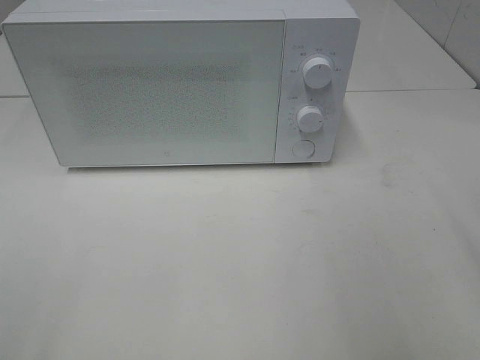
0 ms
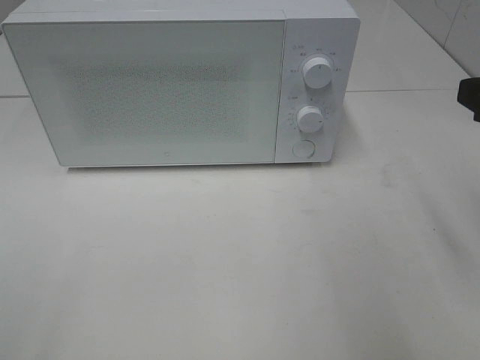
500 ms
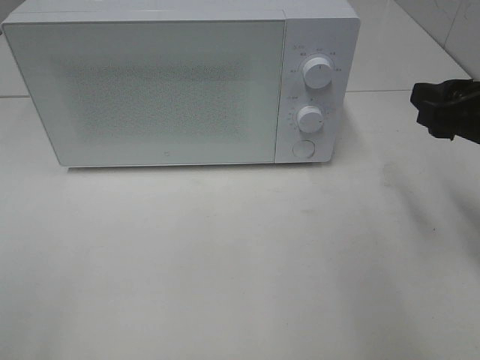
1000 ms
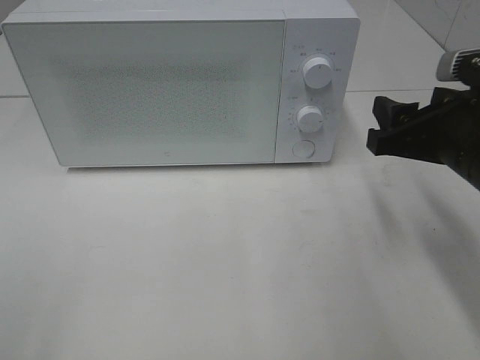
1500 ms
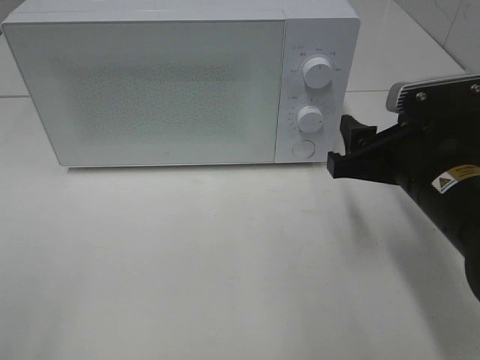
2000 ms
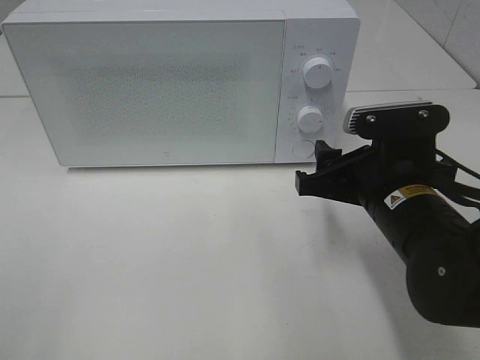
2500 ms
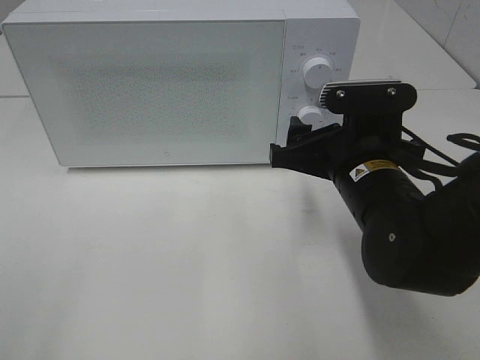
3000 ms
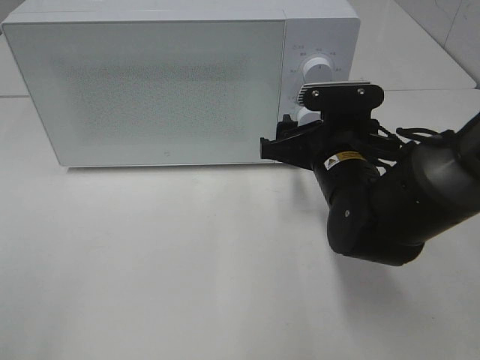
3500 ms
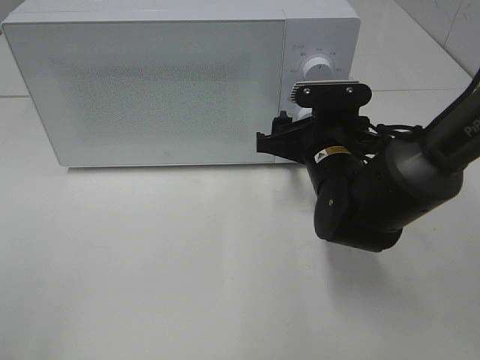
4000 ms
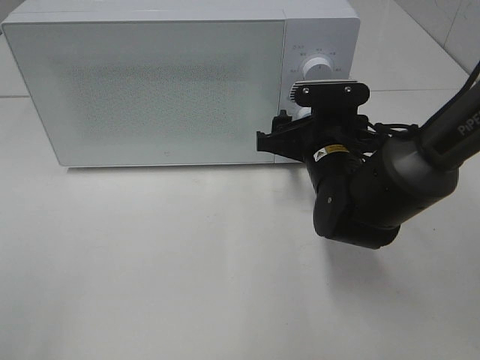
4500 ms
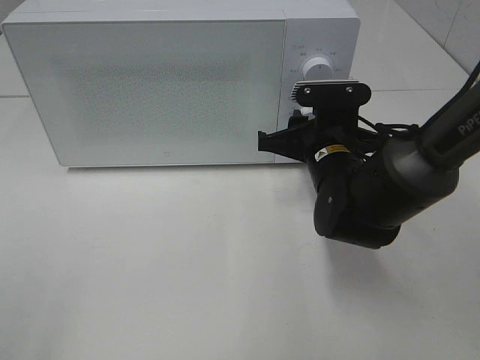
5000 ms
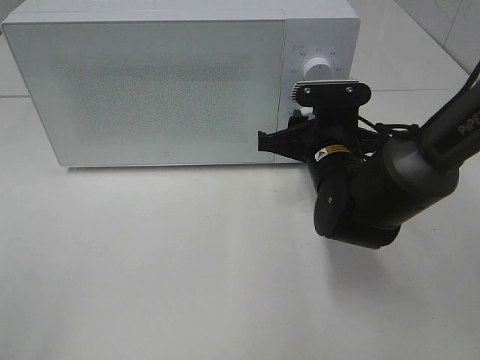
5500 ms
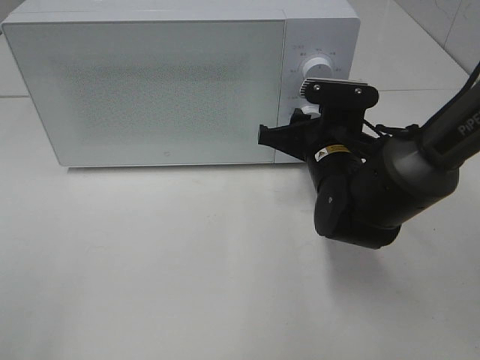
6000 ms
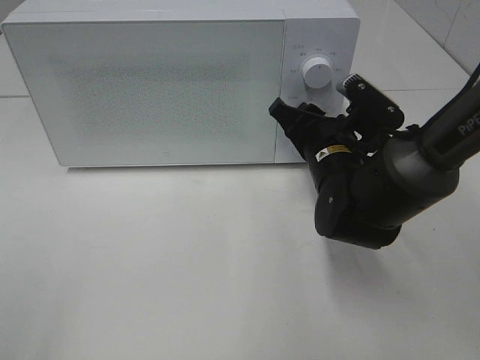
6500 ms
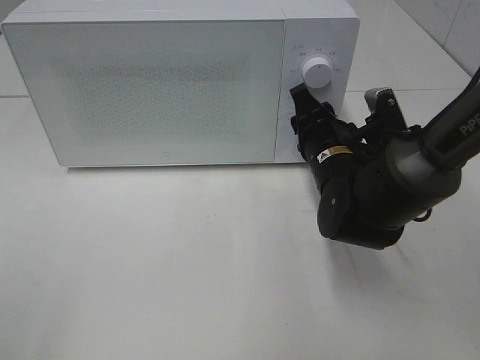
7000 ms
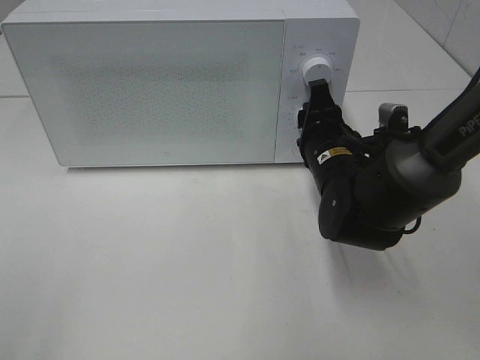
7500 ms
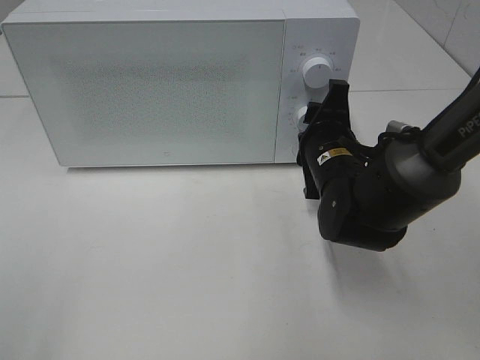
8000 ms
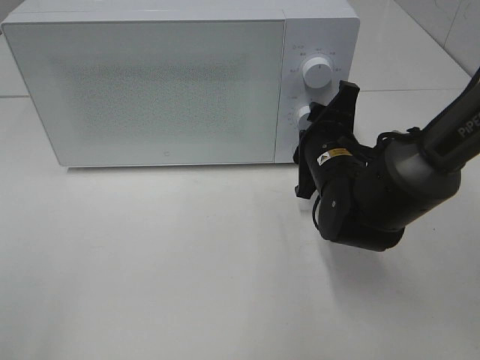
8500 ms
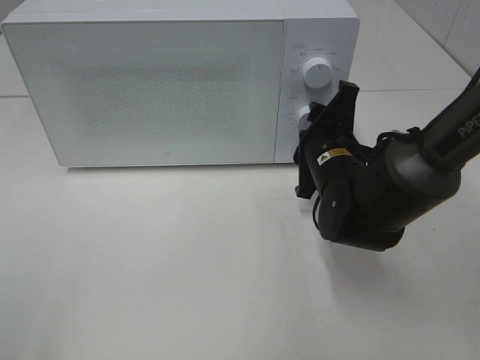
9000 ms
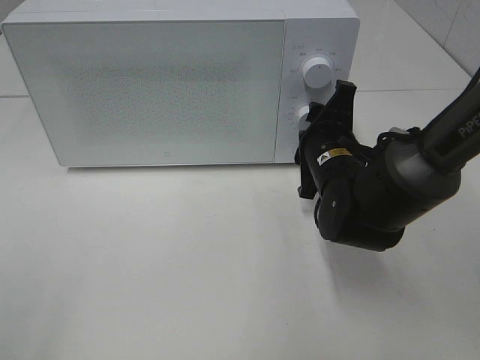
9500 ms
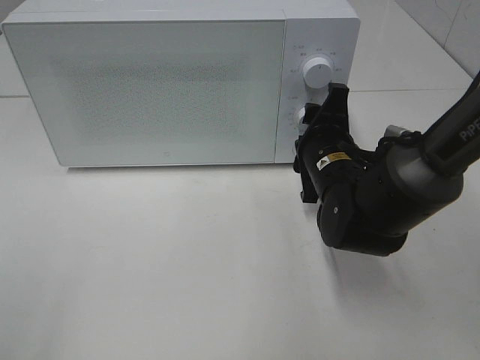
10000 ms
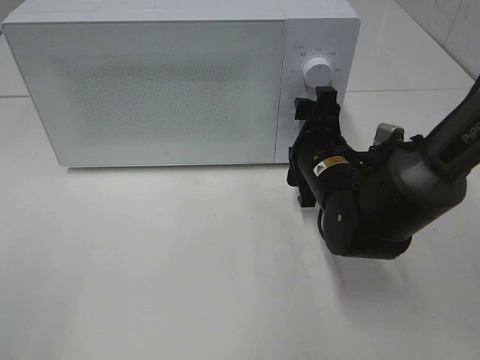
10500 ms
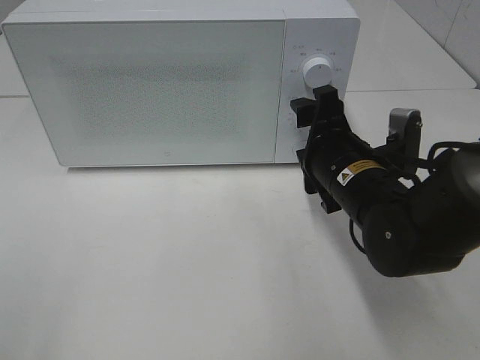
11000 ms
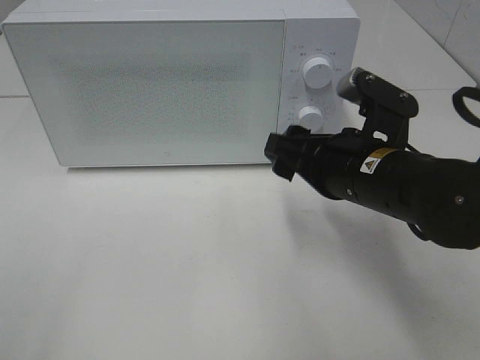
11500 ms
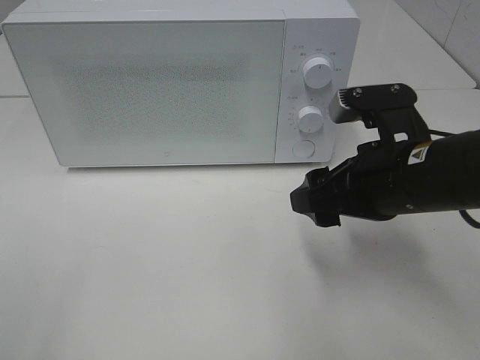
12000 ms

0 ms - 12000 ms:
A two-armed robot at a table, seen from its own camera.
Task of the whole recording: Heat the burger.
Step, 0 ms - 10000 ms: Right hand: twist timer button.
0 ms - 2000 ms: The right gripper moves downward, forward and to the left, approximately 20 cm.
2000 ms - 4000 ms: The right gripper is displaced forward, to the left and downward by roughly 15 cm.
4000 ms - 6000 ms: The right gripper closes its fingers.
8000 ms - 10000 ms: There are only small adjustments of the grippers.
10000 ms - 12000 ms: The right gripper shifts some 10 cm backward and upward.

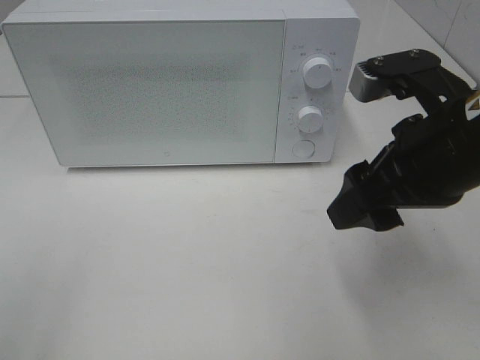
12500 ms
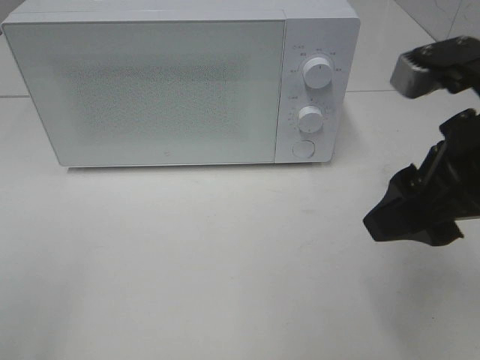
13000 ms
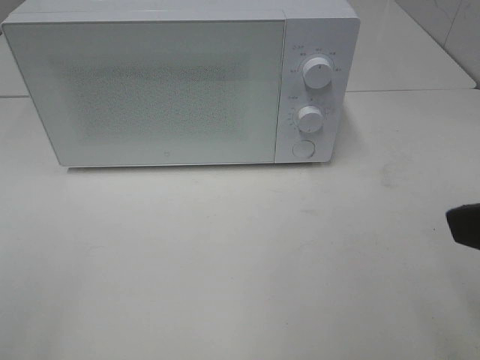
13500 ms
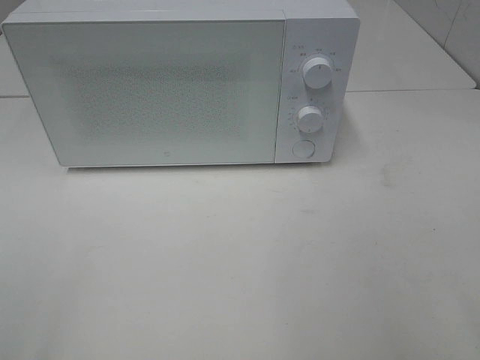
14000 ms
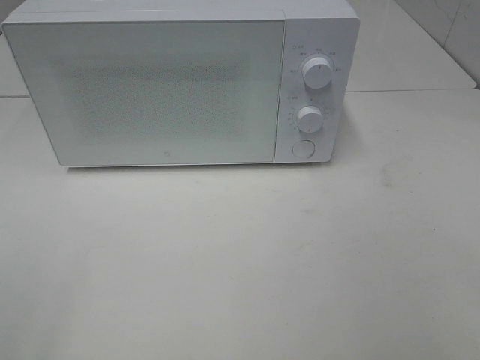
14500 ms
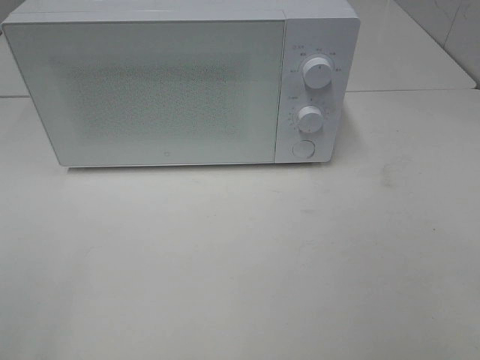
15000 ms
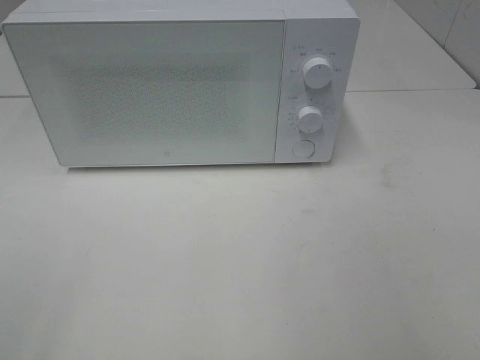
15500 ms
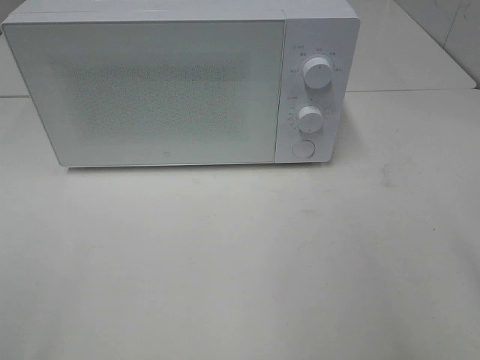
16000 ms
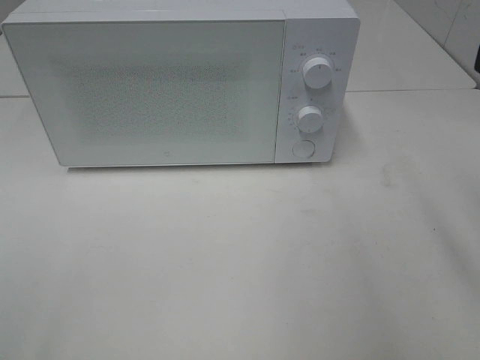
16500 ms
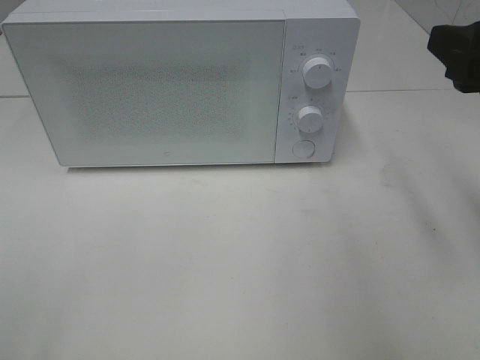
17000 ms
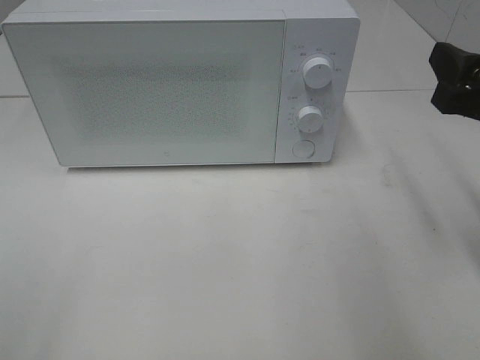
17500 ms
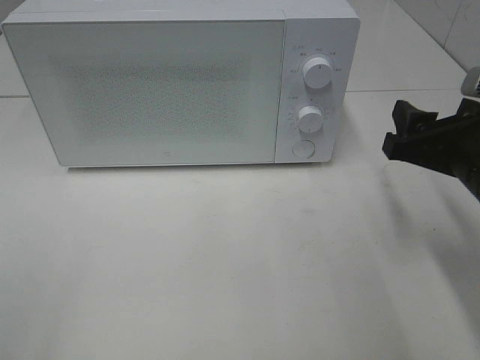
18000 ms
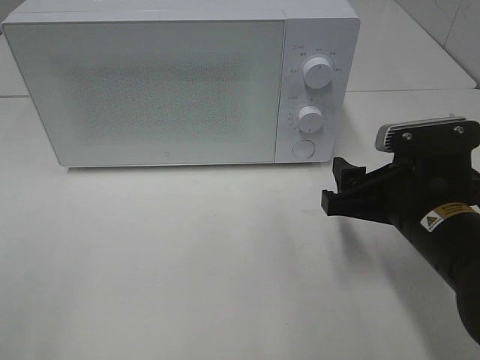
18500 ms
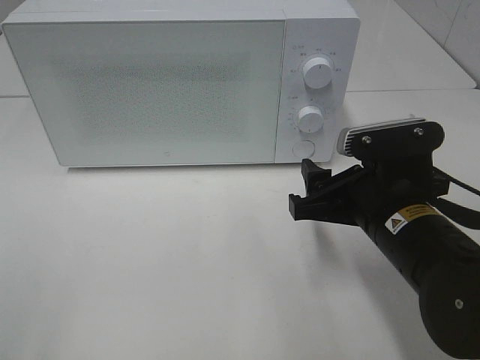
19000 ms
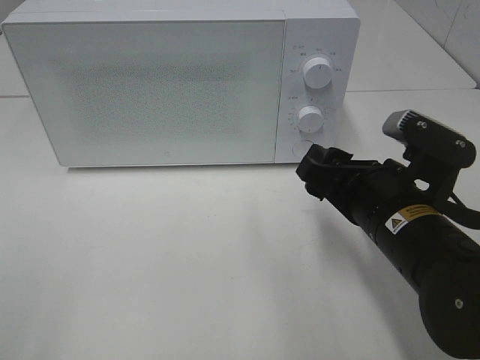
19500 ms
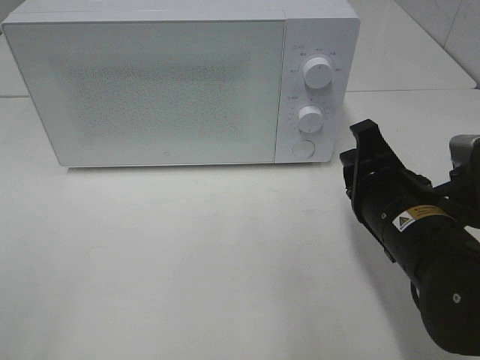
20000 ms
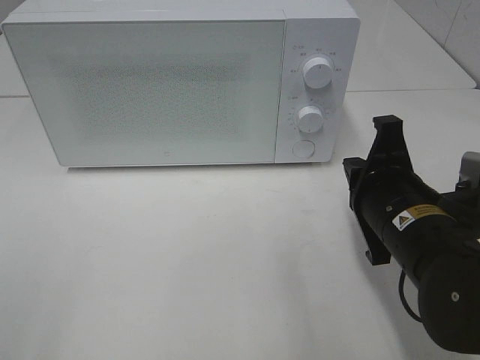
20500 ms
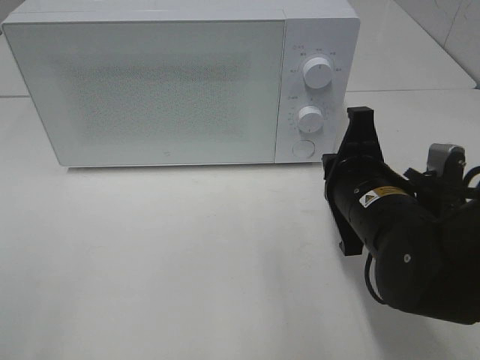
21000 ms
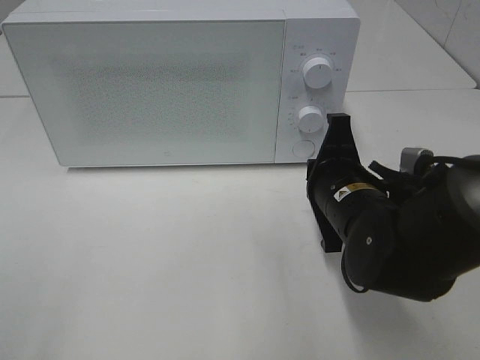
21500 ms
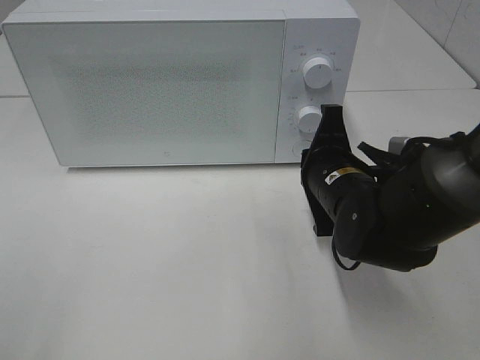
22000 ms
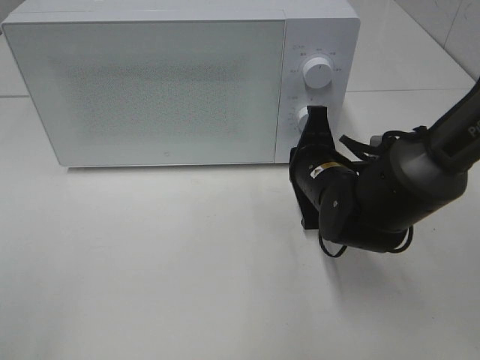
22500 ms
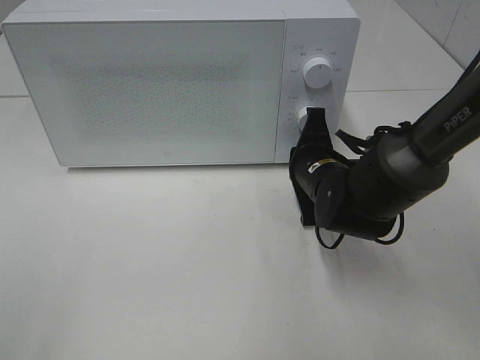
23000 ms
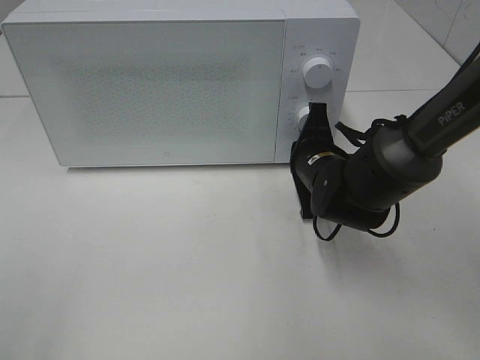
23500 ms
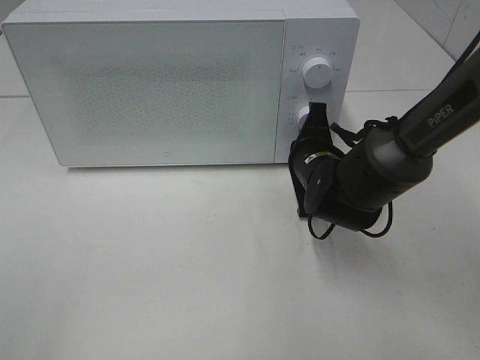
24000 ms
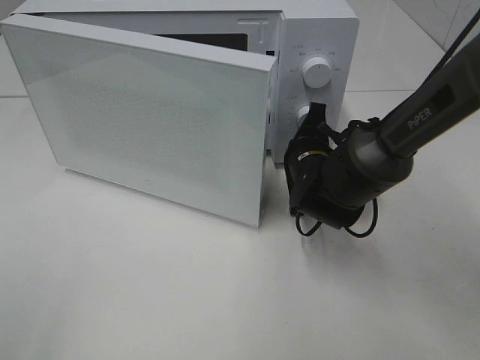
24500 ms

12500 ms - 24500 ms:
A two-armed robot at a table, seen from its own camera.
Task of the whole recording: Heat the burger.
12500 ms - 14500 ms: The right gripper moves backward and to the right, some 25 cm.
16500 ms - 18500 ms: The right gripper is displaced downward and to the left by some 20 cm.
18500 ms - 20500 ms: The right gripper closes up.
20500 ms - 22500 ms: The right gripper travels forward by about 10 cm.
22500 ms - 24500 ms: The right gripper moves approximately 5 cm.

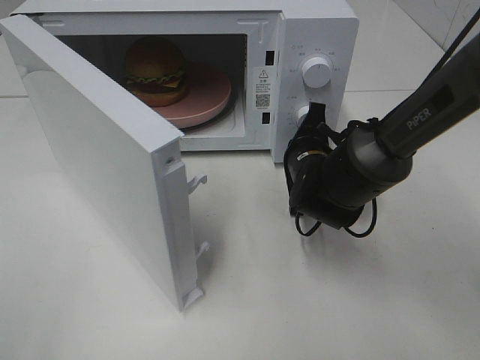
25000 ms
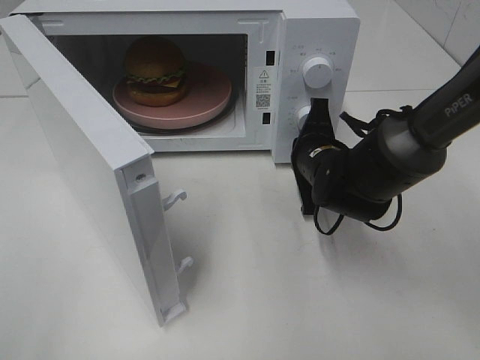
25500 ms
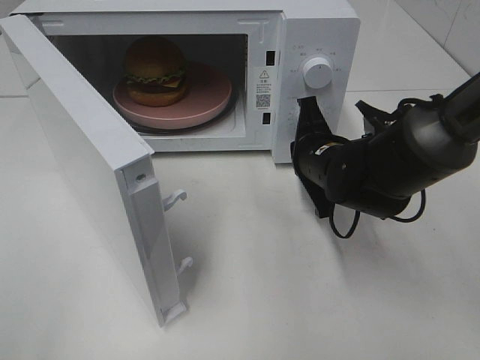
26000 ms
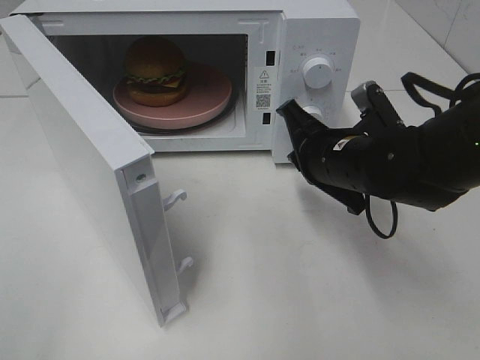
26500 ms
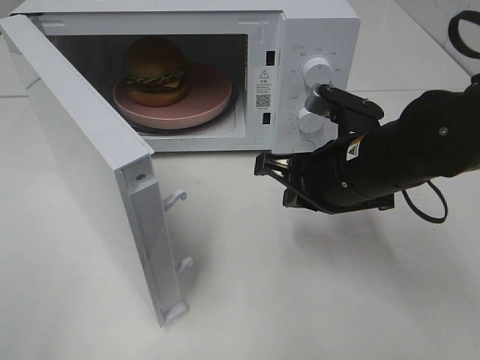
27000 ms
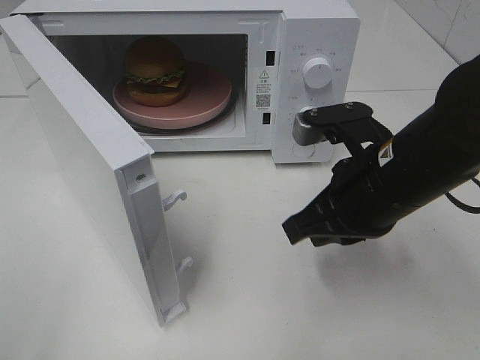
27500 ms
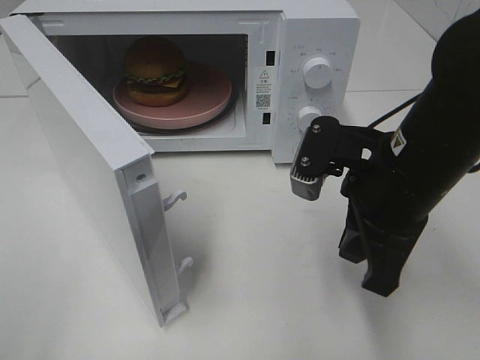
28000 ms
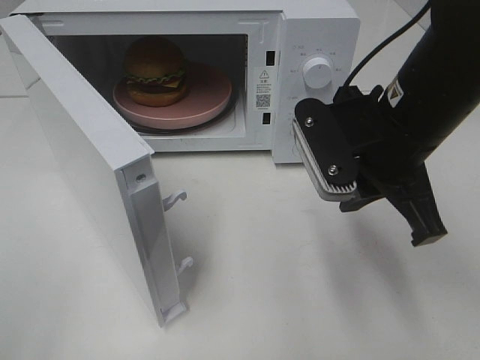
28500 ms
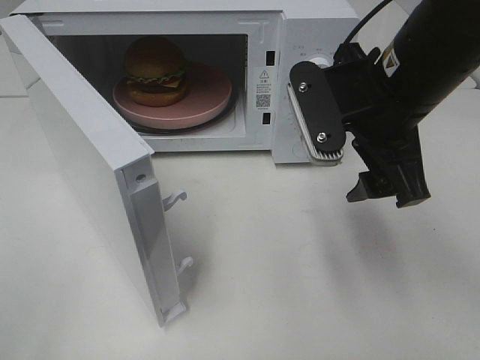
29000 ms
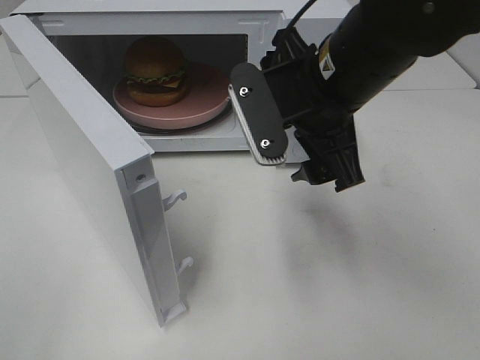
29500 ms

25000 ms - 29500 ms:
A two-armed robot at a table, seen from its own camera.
Task of the whole recording: Heat the burger.
25000 ms - 27000 ms: The right gripper shifts roughly 15 cm backward and upward.
27000 ms - 29500 ms: The right gripper heads upward, covering about 10 cm, and opens up.
